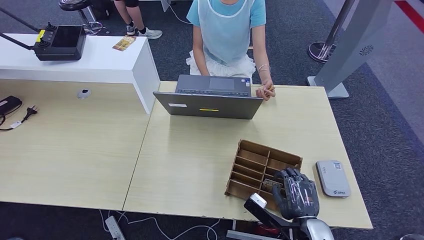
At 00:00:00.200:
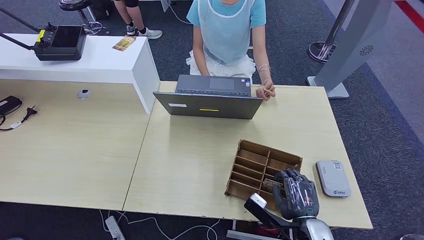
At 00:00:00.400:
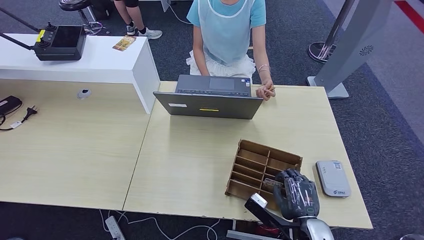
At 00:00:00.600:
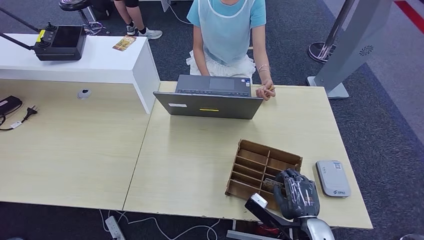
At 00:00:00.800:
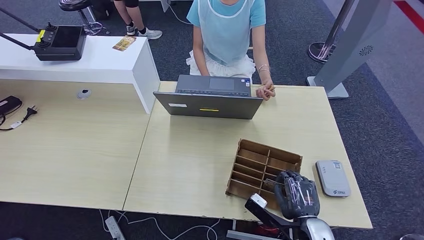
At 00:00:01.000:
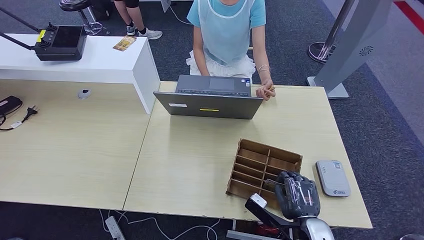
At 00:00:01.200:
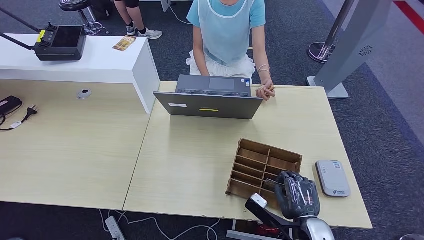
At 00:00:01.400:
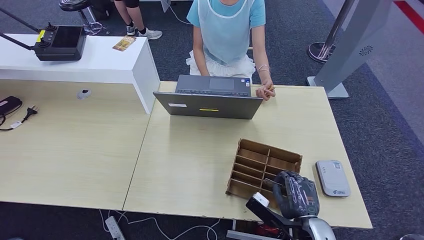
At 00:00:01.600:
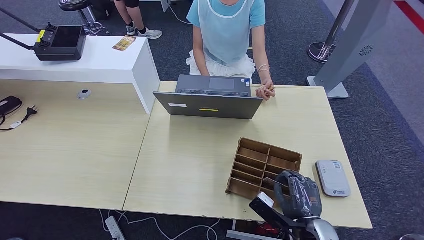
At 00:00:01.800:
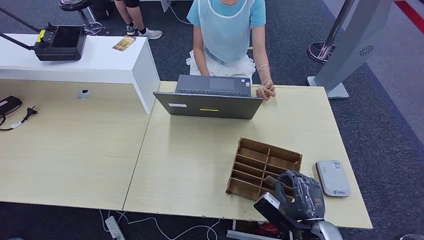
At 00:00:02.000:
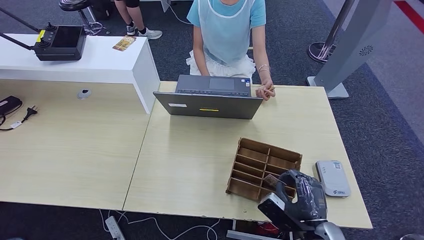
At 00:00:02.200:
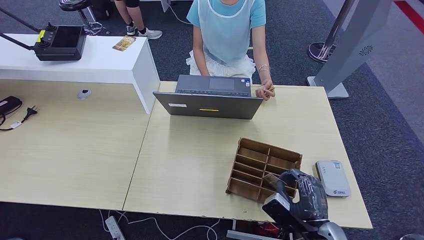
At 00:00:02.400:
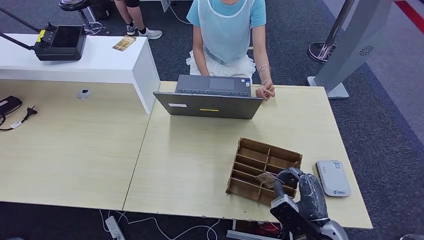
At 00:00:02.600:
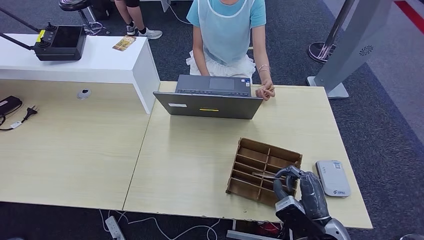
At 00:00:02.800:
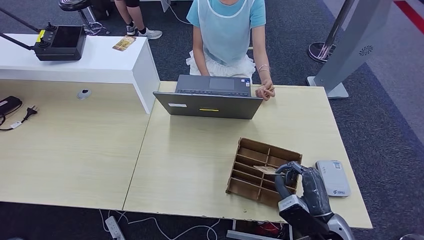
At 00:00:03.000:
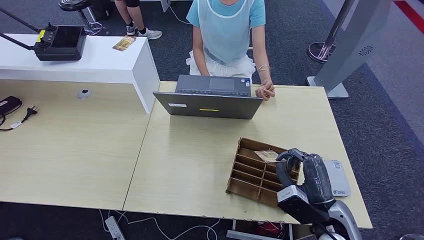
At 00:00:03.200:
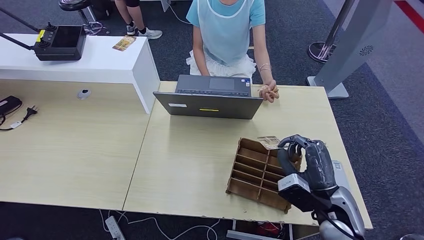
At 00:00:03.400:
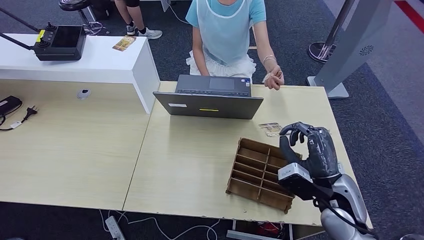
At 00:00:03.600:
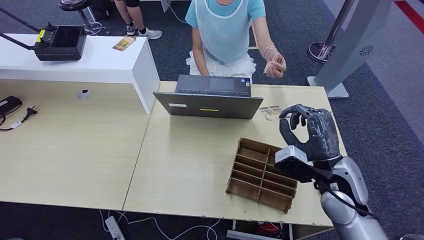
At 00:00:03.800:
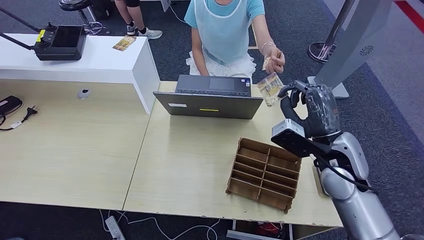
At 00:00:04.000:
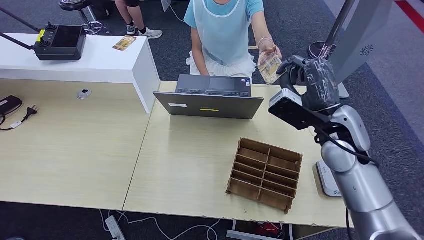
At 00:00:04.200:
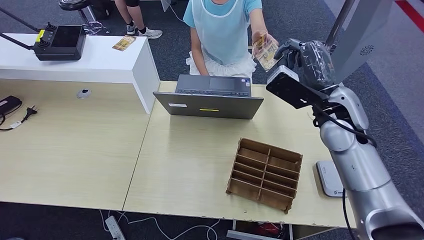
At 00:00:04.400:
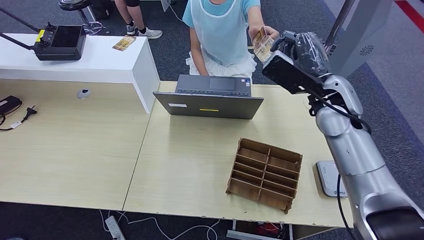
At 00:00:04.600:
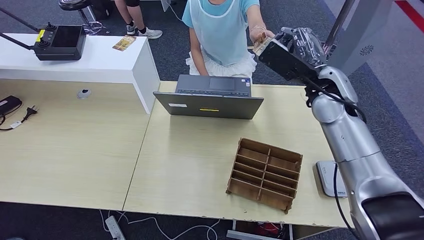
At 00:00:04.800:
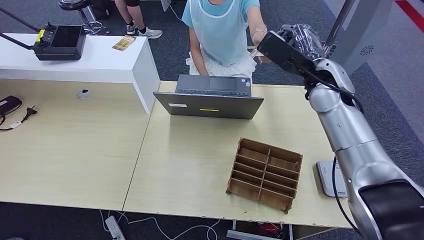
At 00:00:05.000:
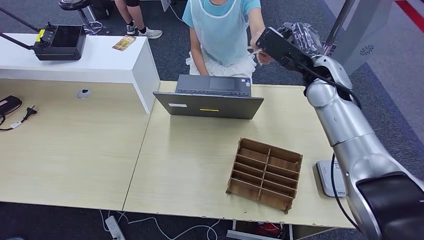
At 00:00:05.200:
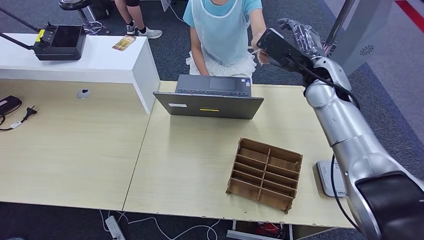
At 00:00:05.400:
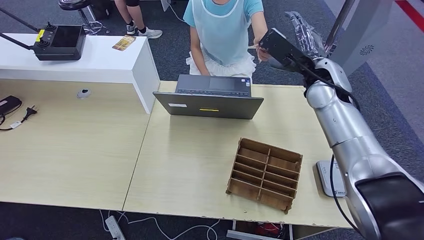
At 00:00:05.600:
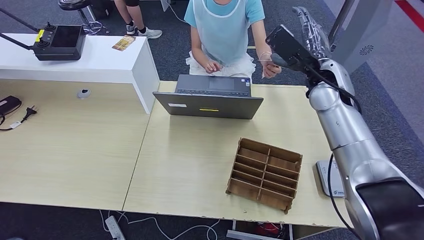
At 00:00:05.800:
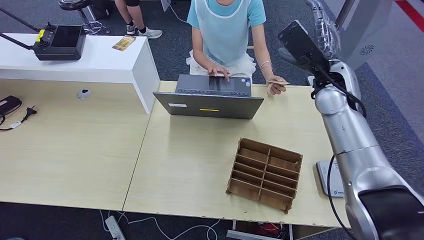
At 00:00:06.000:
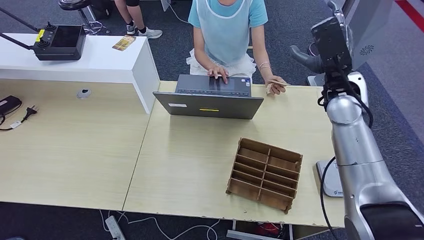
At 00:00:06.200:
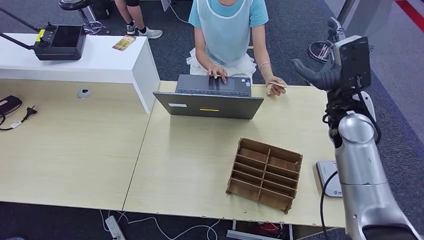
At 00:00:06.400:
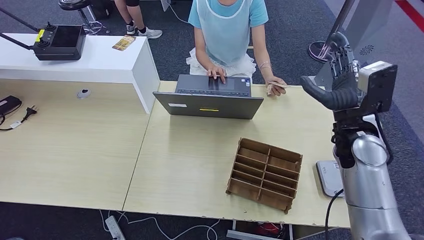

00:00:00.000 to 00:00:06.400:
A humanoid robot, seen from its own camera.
Step, 00:00:00.000 to 00:00:02.800: Pick up the room key from the key card box.
Step, 00:00:03.000 to 00:00:06.400: Hand the room key to the person.
00:00:00.000 to 00:00:01.600: The hands move only a little.
00:00:01.600 to 00:00:03.200: The right hand moves upward, roughly 10 cm.
00:00:03.200 to 00:00:04.800: The right hand shifts approximately 30 cm forward and upward.
00:00:04.800 to 00:00:06.400: The right hand shifts approximately 15 cm backward, downward and to the right.
